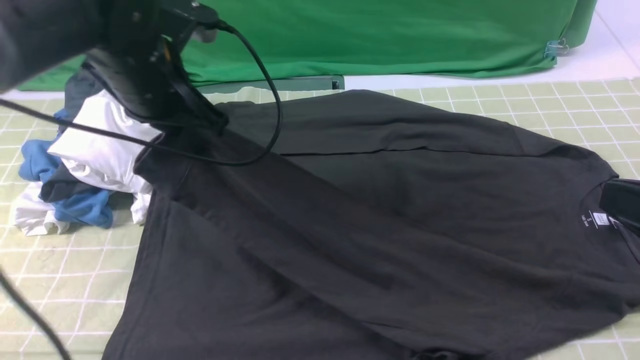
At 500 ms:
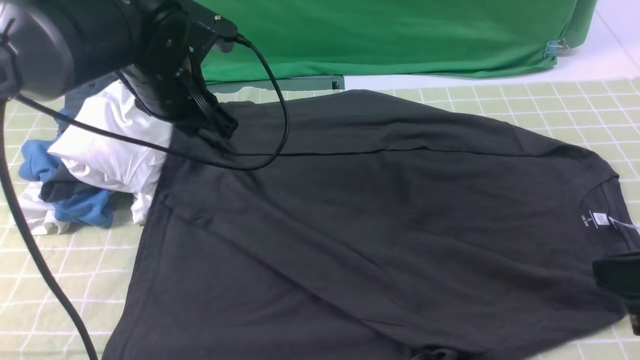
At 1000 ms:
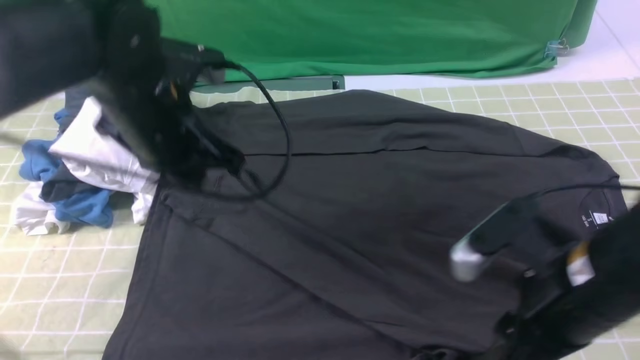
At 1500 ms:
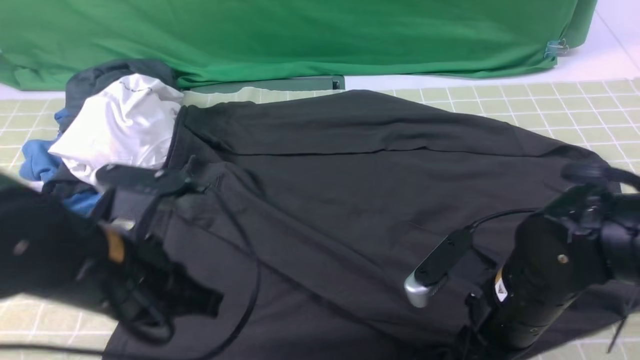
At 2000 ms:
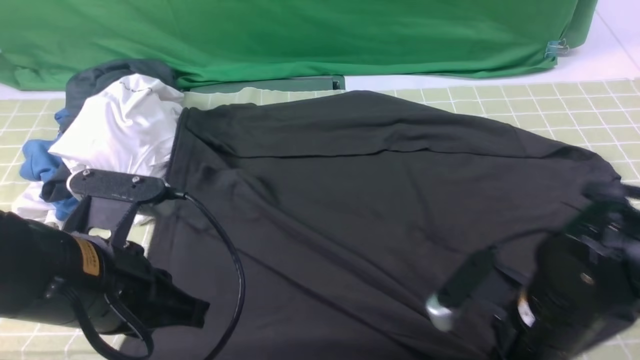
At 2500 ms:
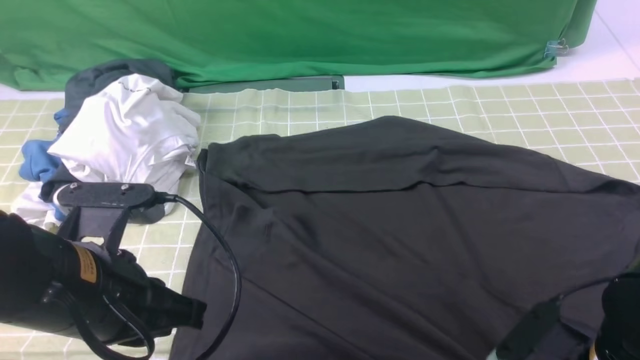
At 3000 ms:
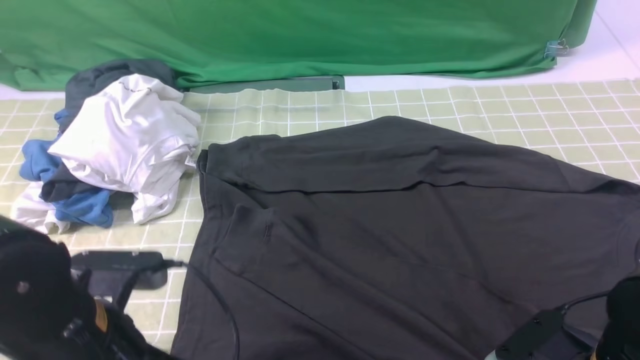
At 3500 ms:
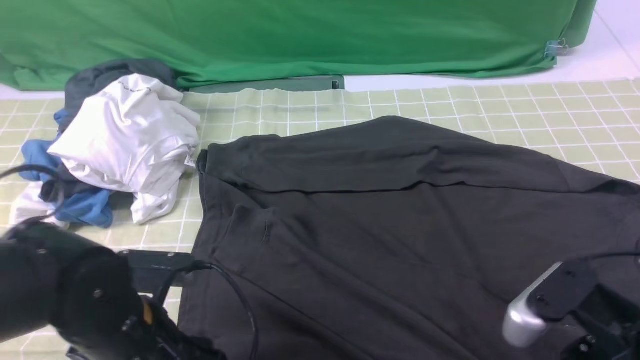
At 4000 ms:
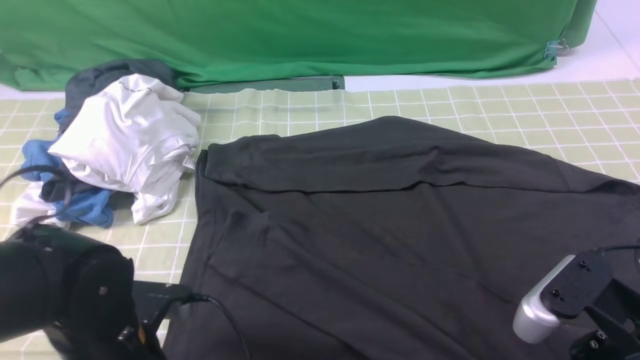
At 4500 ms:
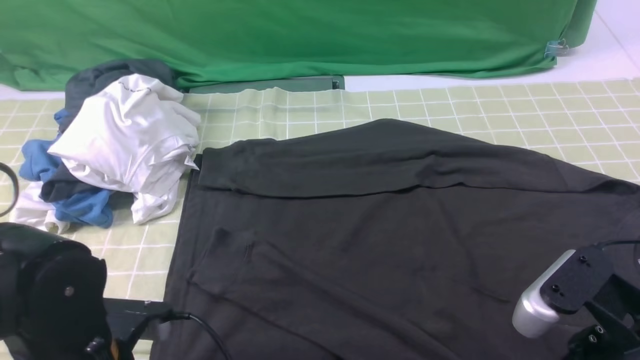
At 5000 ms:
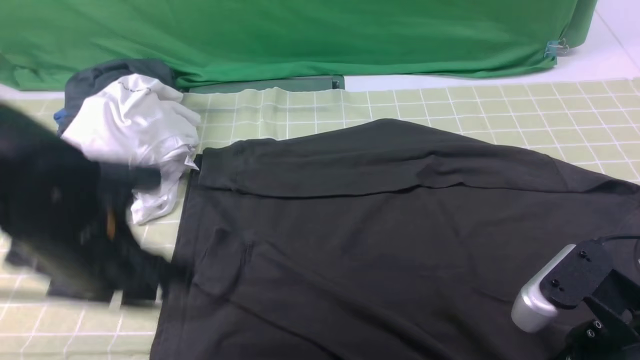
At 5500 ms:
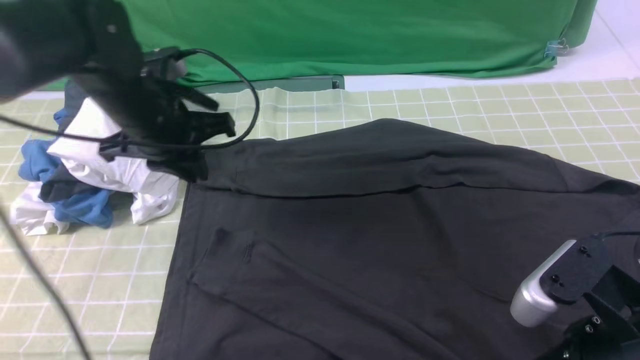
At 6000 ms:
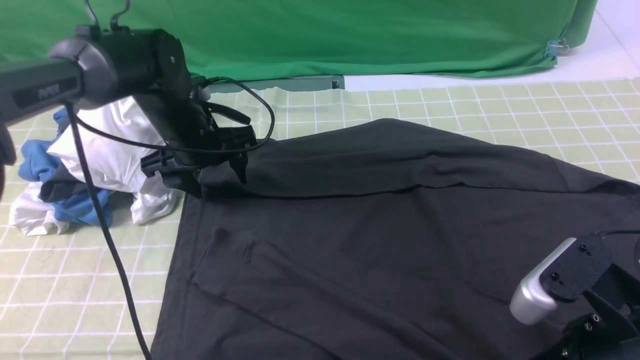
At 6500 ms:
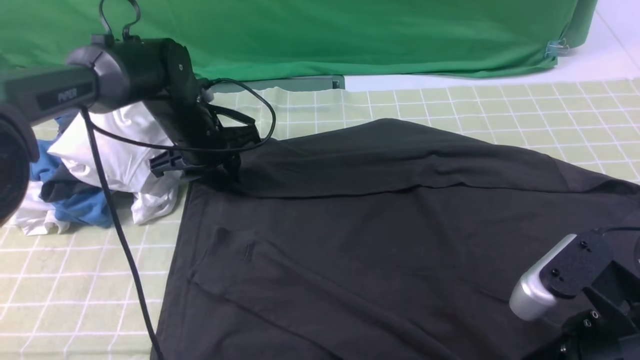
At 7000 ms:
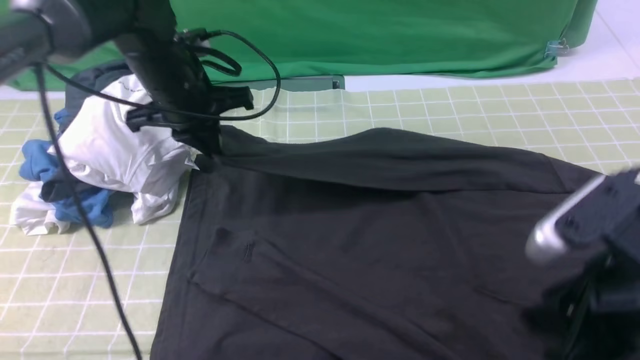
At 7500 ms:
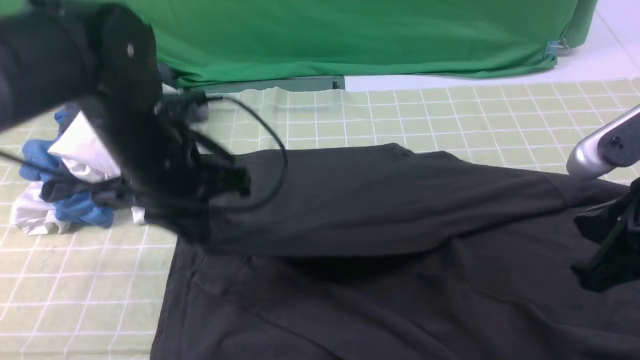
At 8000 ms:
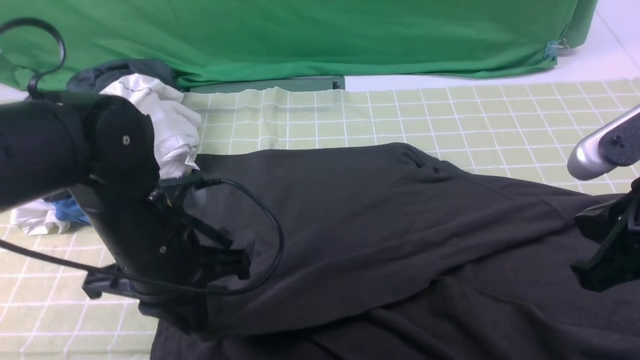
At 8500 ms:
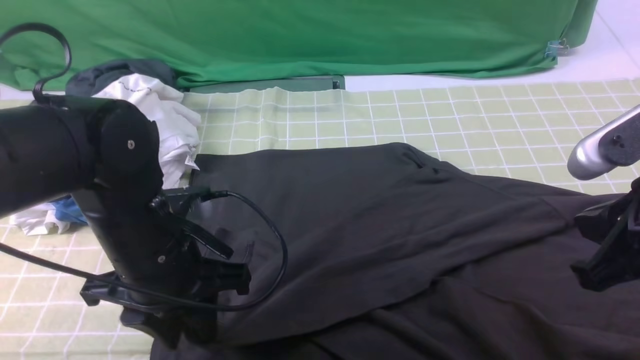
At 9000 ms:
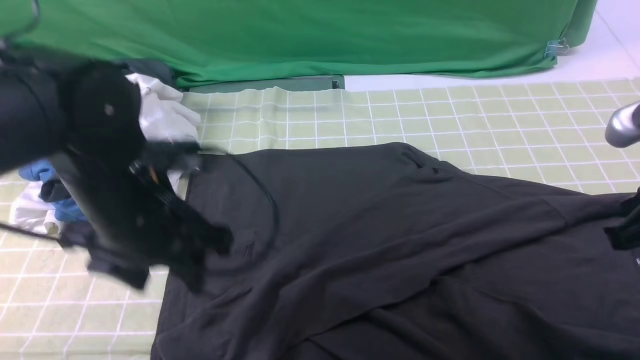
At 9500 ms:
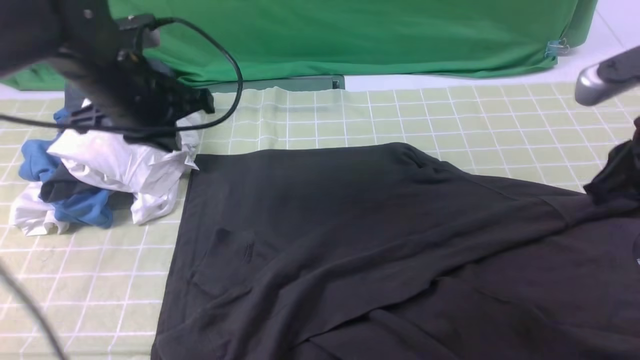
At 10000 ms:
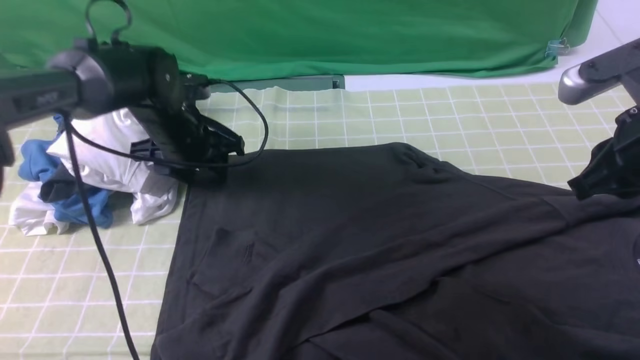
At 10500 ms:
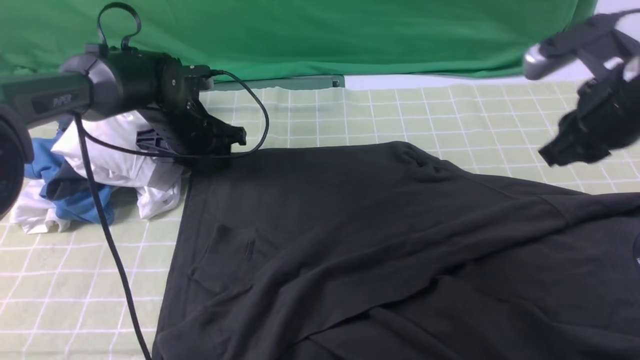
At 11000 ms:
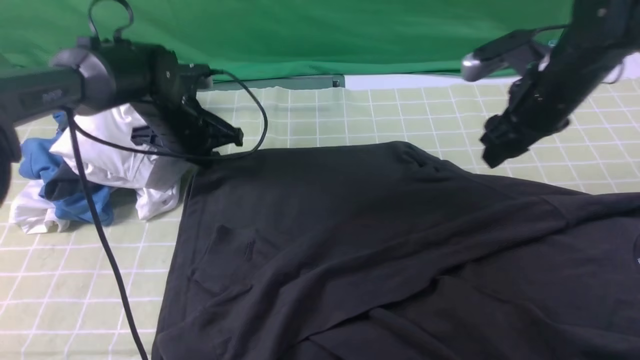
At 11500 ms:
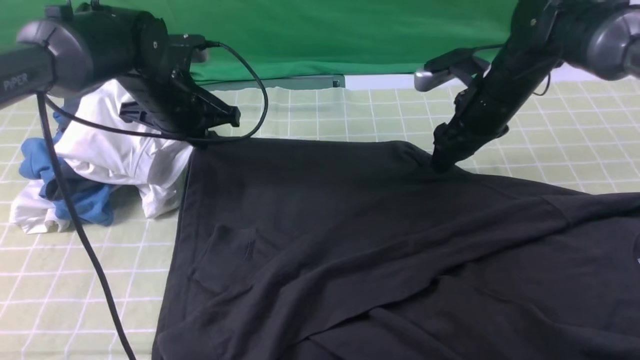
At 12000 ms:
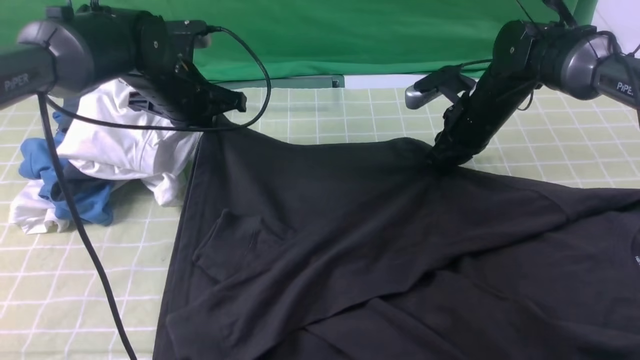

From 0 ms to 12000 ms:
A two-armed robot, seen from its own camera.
Step, from 1000 ms to 6500 ms: use the left arm to clamp the cuff farthest from it.
Step, from 7000 ms to 8500 ms: use the left arm to drag and drop the cuff onto the cuff closest to the left arm.
From 0 ms to 2000 ms: The right gripper travels downward and to the left by roughly 20 cm, and opens, then closes once more, while the left gripper moves backward, roughly 20 cm, and opens and closes again.
From 2000 ms to 4000 ms: The left gripper travels downward by roughly 10 cm, and opens, then closes again. The right gripper heads upward and backward, covering some 10 cm, and opens.
From 4000 ms to 6000 ms: The left gripper shifts roughly 25 cm forward, and opens.
From 6000 ms to 8000 ms: The right gripper shifts some 5 cm upward and forward, and closes its fingers; the left gripper goes roughly 20 cm backward, and closes up.
From 8000 ms to 10000 ms: The left gripper goes about 20 cm forward, and opens. The right gripper heads forward, covering roughly 10 cm.
From 10000 ms to 12000 ms: The right gripper is displaced forward and downward by roughly 25 cm, and opens and closes again. The left gripper goes roughly 5 cm upward, and closes up.

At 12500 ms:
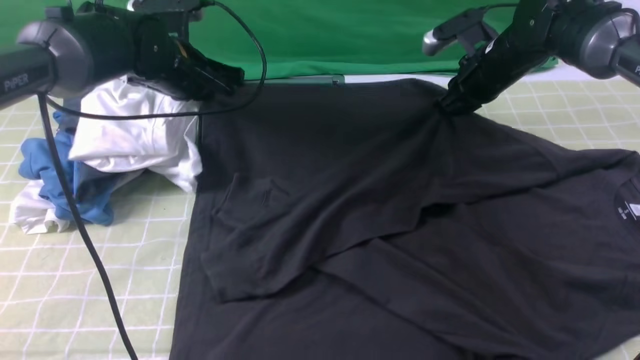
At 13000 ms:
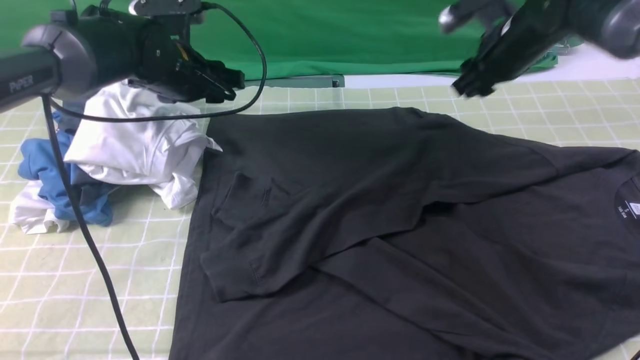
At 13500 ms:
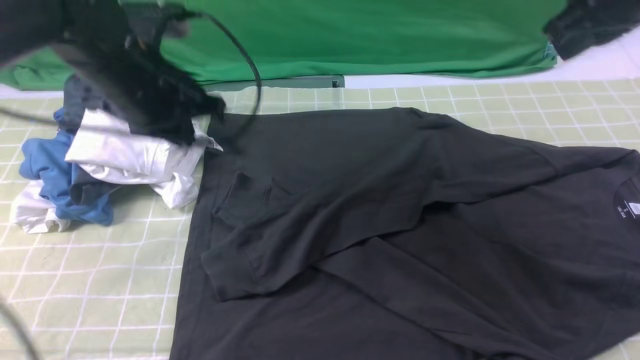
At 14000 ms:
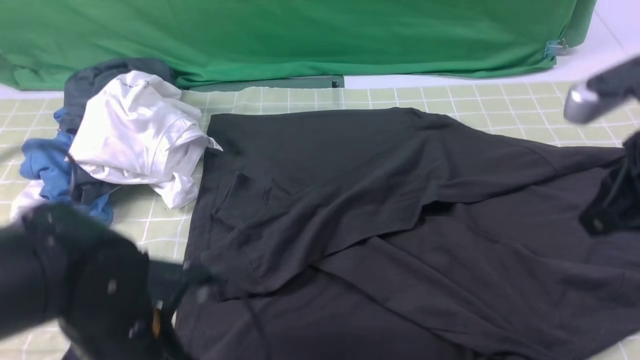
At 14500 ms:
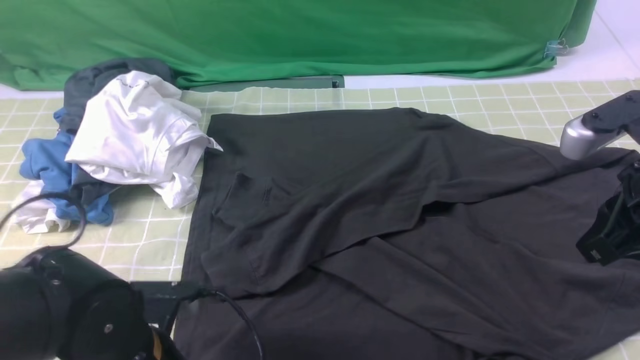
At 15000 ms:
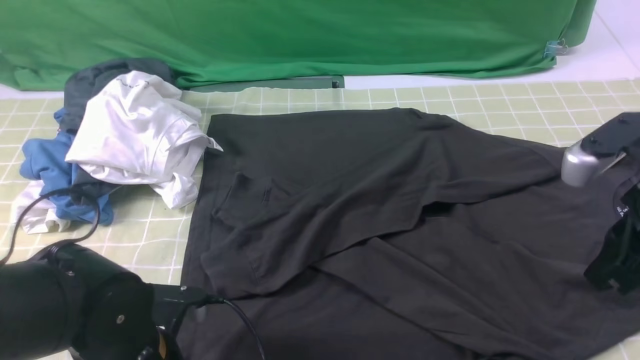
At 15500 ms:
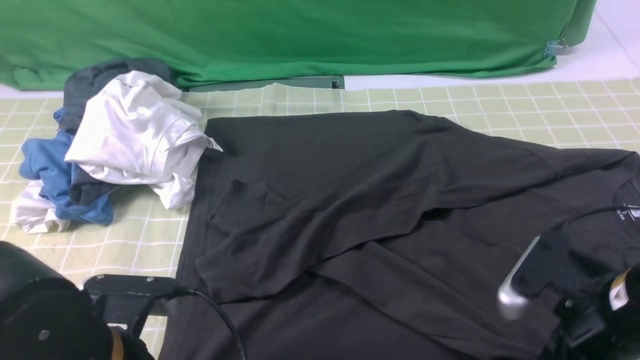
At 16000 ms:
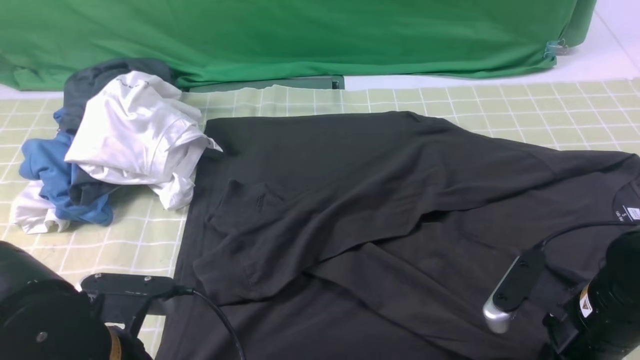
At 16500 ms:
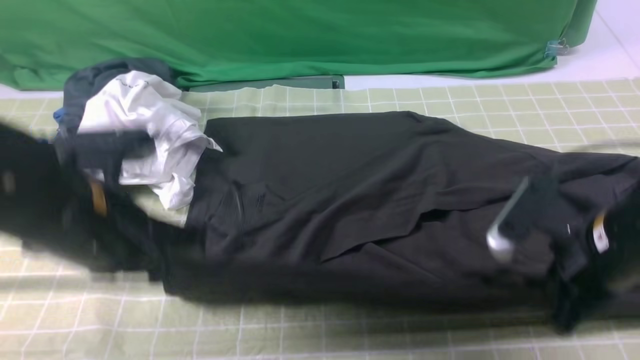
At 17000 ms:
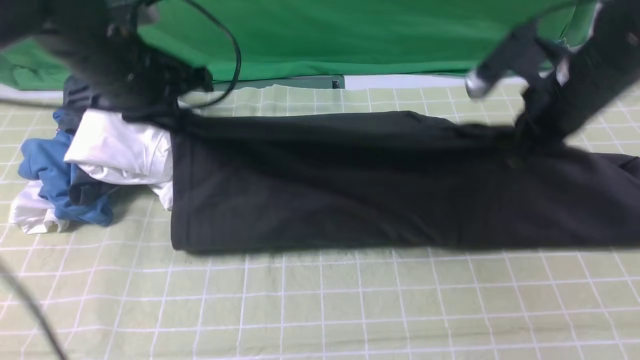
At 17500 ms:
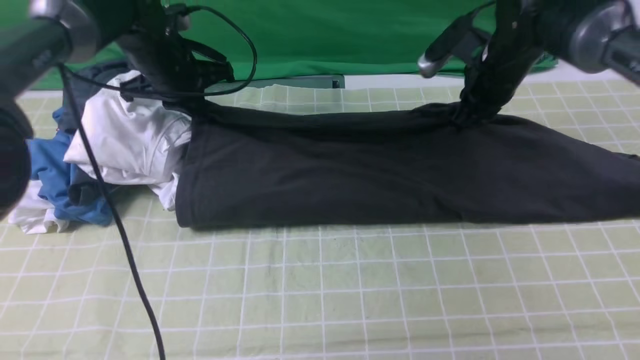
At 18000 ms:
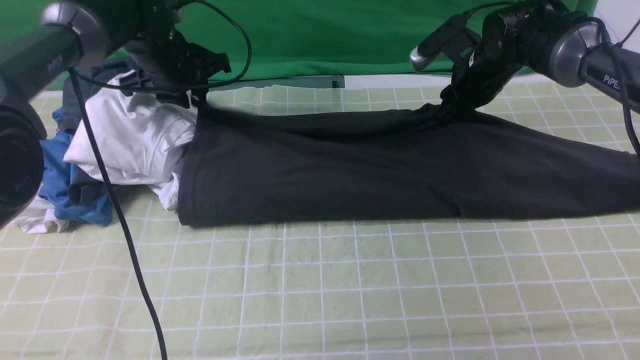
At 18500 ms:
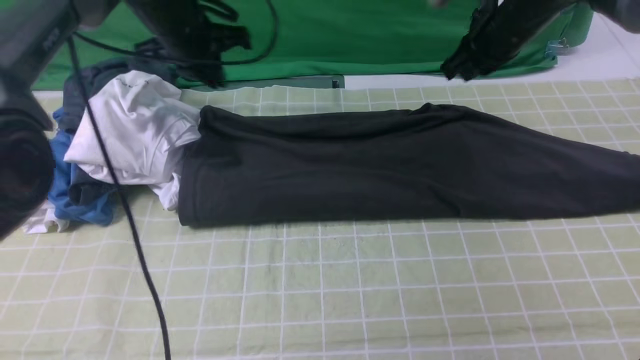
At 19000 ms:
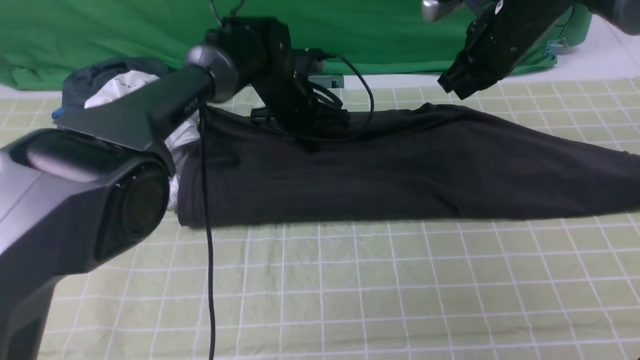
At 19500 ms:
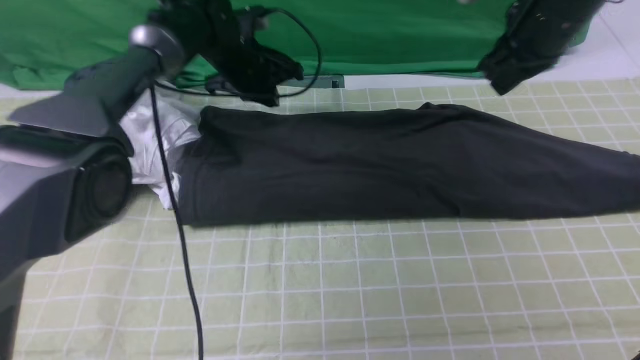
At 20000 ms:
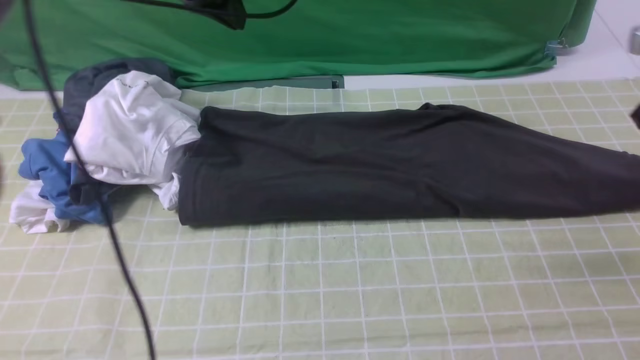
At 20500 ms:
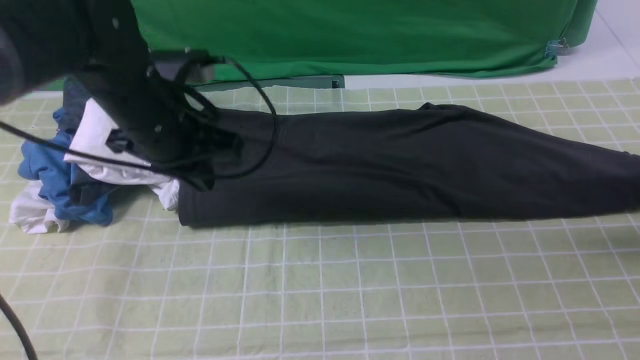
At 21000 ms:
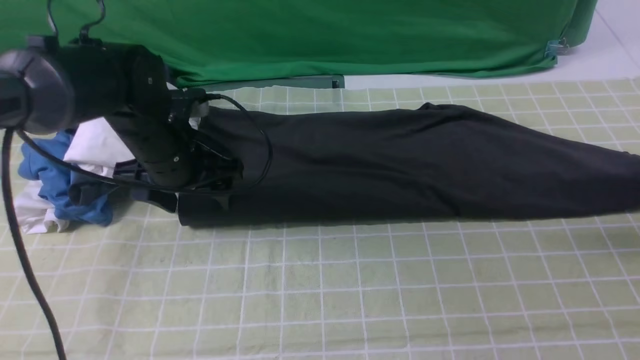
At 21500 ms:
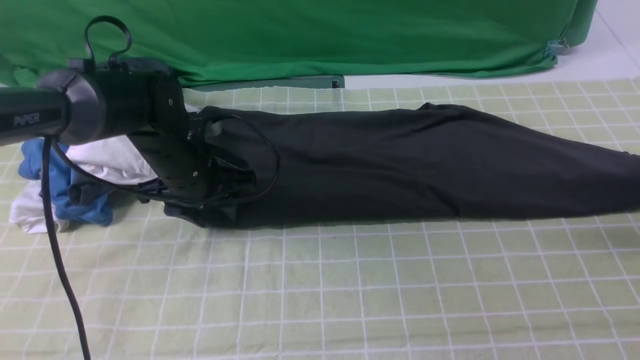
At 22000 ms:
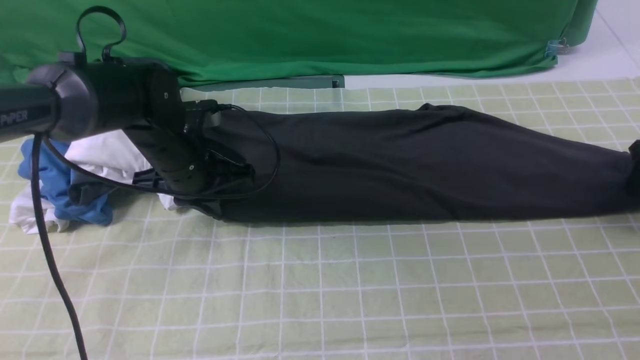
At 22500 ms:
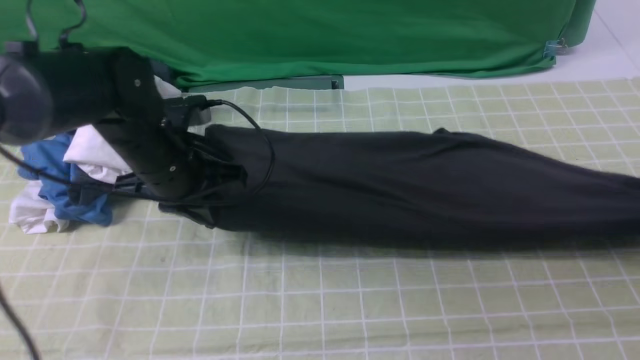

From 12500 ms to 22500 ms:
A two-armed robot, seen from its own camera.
Step, from 12500 ms to 16000 ms: use both arms simultaneously to clamp the lower edge of the clothing fabric.
Step, from 16500 ms to 18000 ms: use both arms to drag the lower edge of the fabric forward and fold it over the upper edge.
From 12500 ms to 14500 ms: The two grippers go approximately 30 cm backward. The left gripper opens its fingers.
From 14500 ms to 16500 ms: The right gripper travels downward by about 5 cm, and opens, then closes again; the left gripper shifts approximately 15 cm upward and forward, and closes up.
From 16500 ms to 18500 ms: The two grippers go some 25 cm forward. The right gripper opens, then closes again.
From 18500 ms to 20500 ms: The right gripper shifts roughly 25 cm to the right, and opens up. The left gripper moves up and down over about 20 cm, changing direction 2 times.
From 20500 ms to 22500 ms: The left gripper moves downward, about 5 cm, and opens, then closes once more. The right gripper closes up.
